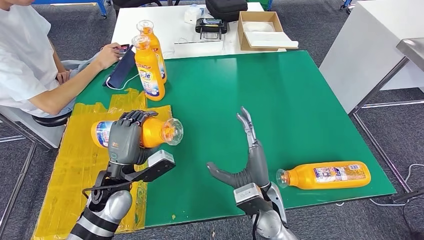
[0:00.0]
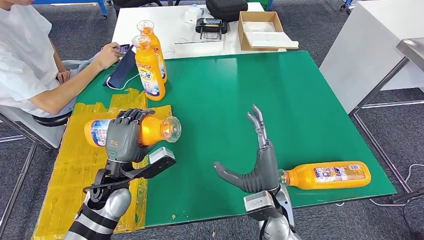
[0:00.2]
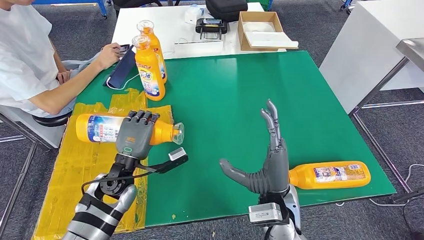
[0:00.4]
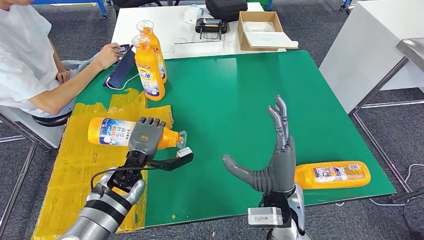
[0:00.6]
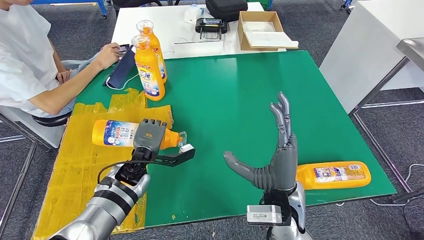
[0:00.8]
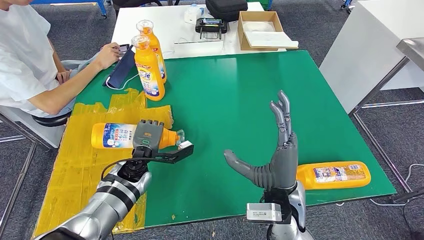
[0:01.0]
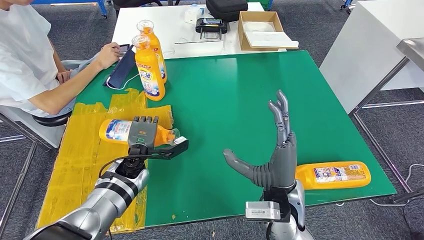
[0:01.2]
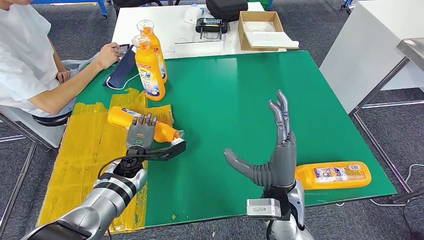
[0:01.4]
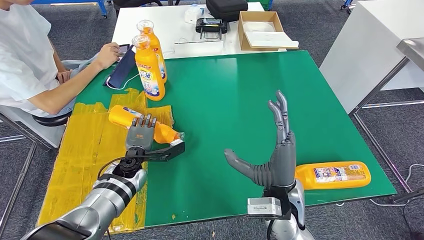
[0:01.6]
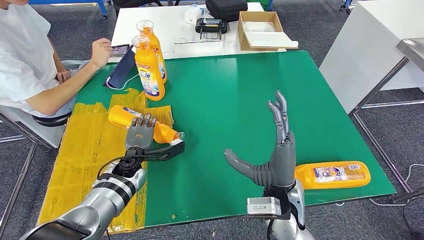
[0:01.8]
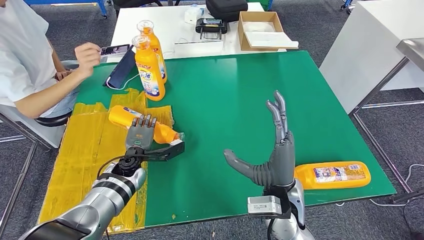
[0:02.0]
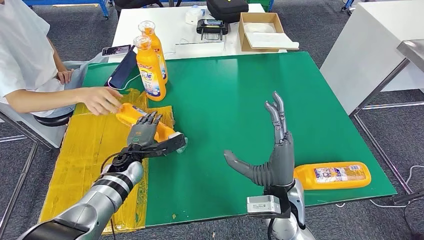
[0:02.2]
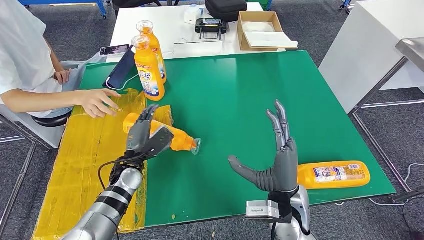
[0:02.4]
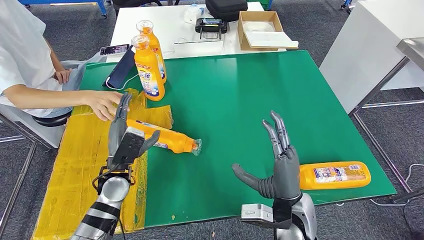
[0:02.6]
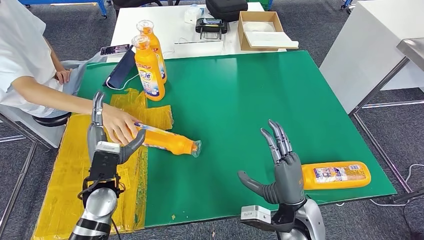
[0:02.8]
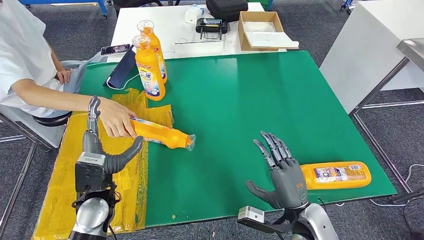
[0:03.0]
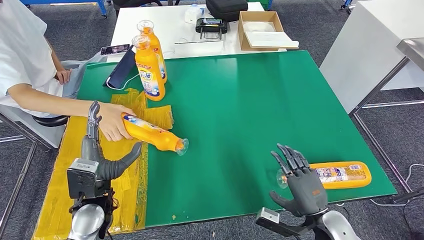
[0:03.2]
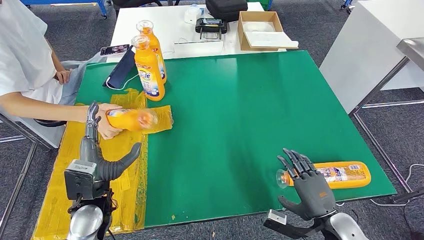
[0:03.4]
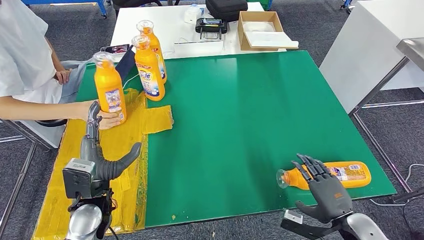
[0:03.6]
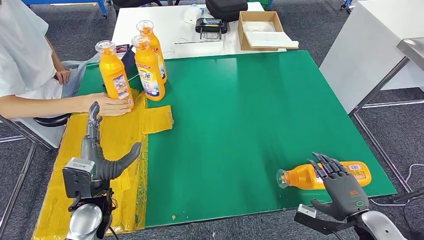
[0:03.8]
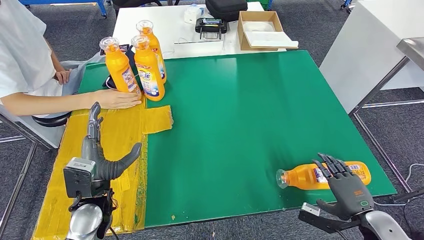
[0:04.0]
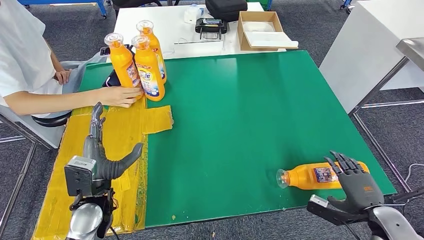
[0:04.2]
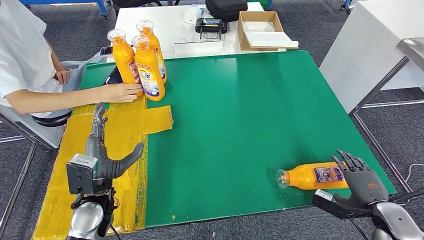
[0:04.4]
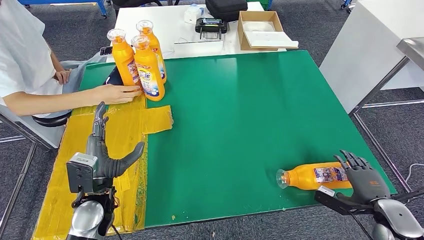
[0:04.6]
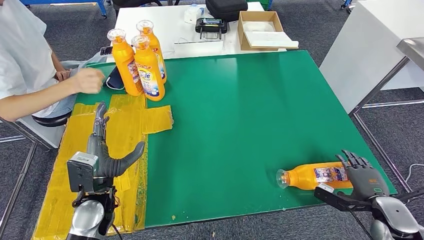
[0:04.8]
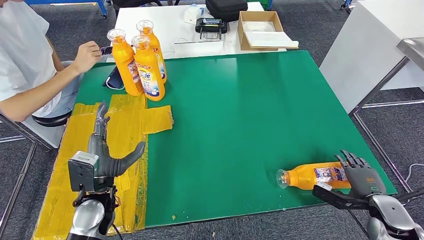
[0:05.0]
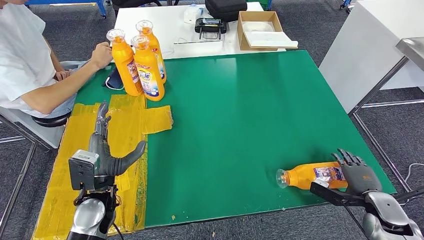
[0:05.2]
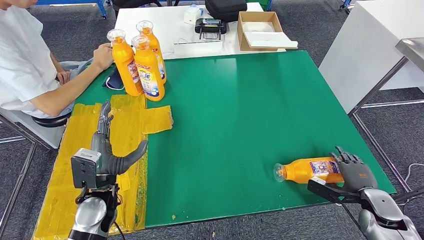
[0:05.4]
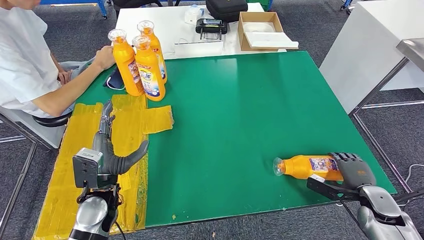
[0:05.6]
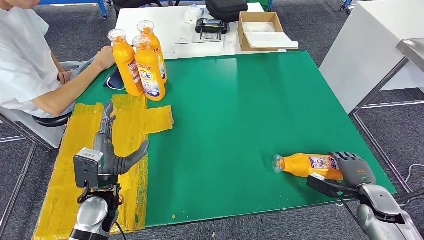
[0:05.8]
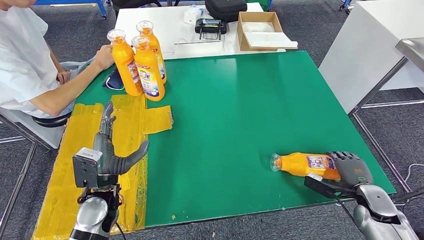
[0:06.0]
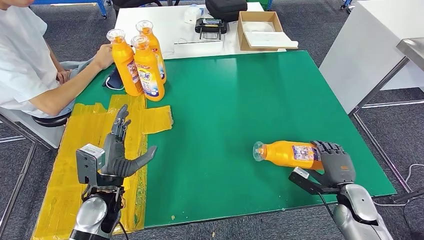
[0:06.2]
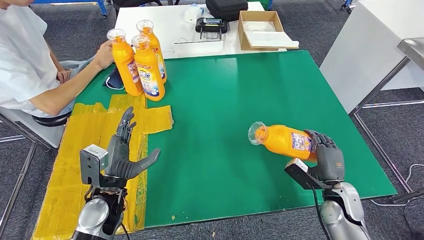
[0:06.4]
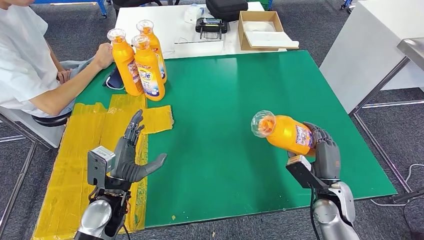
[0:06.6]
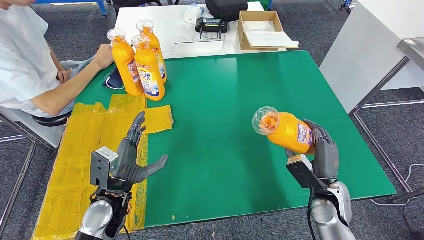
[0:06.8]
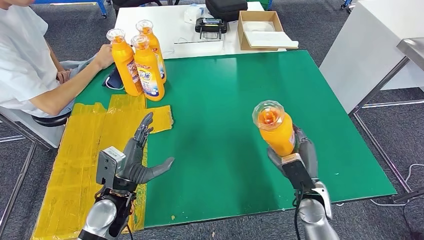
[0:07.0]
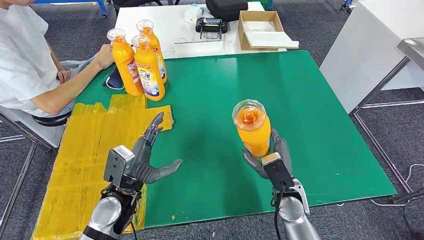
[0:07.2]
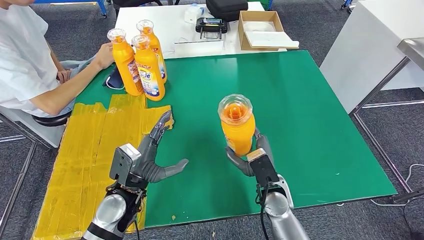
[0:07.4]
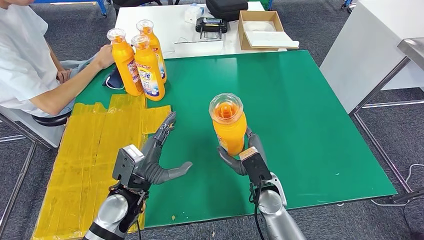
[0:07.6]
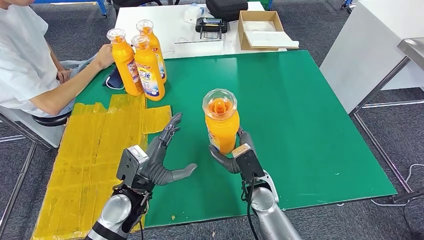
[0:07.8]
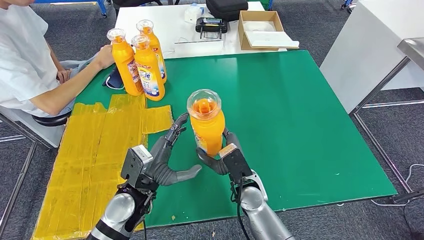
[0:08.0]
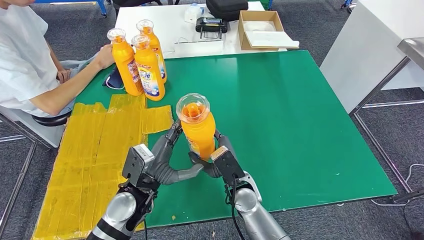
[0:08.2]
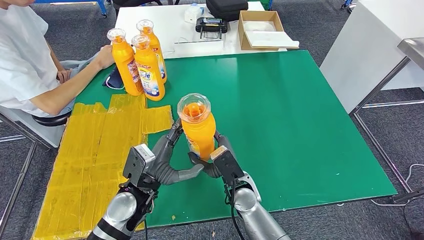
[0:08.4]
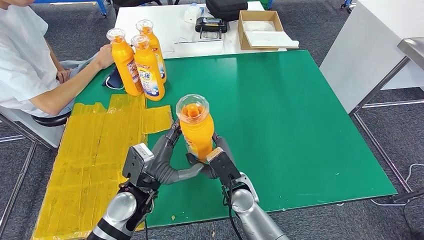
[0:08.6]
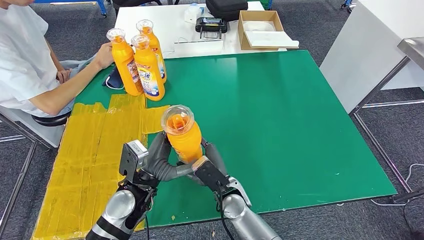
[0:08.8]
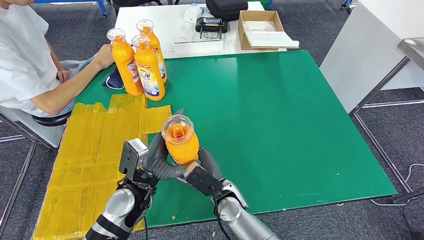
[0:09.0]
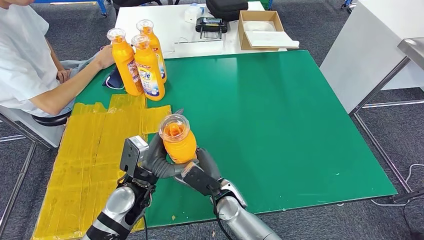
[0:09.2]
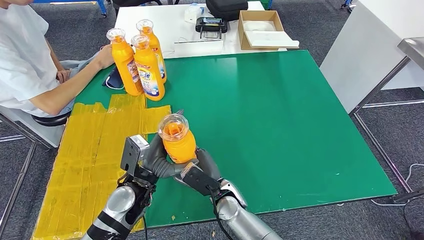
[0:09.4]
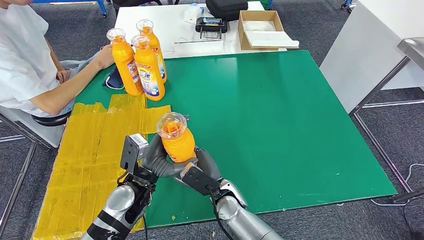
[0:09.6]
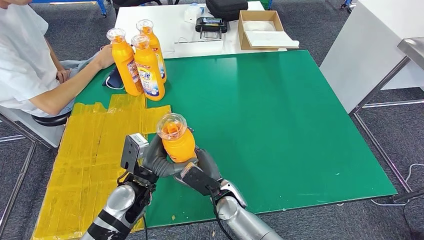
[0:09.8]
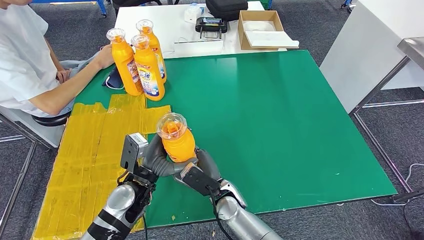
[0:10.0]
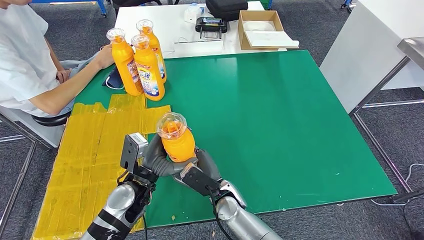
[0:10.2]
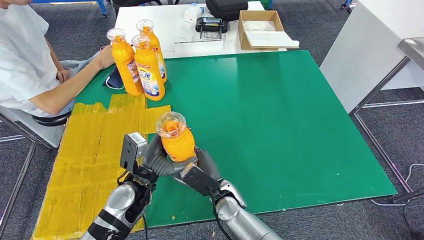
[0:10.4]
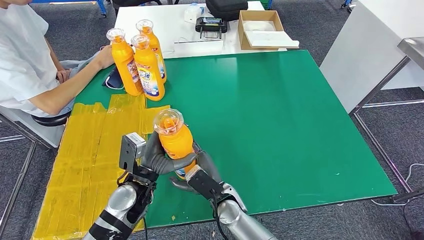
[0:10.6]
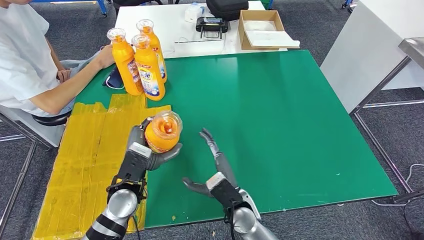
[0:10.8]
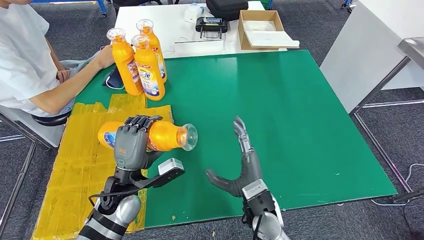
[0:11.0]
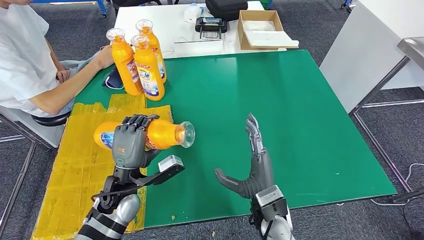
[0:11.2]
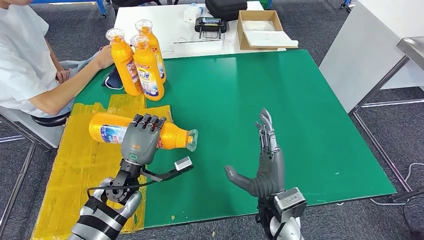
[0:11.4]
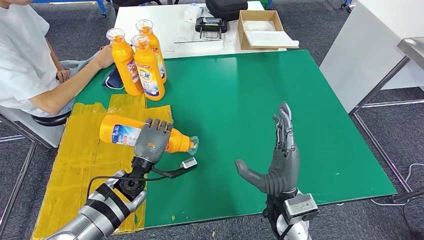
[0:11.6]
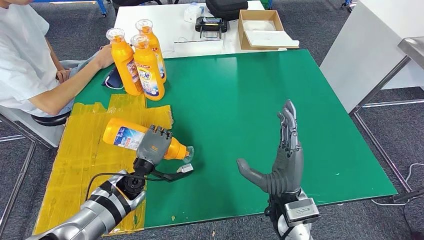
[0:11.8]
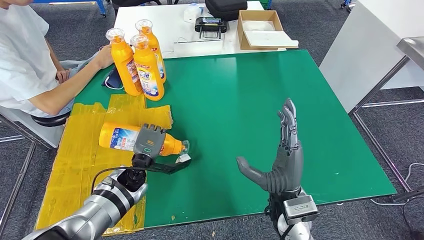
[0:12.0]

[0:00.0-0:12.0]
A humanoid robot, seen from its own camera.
Step, 0:00.0 to 0:02.8: Flip the fast-moving consumer goods bottle to the front side.
Step, 0:03.0 to 0:06.6: Pick up the fast-moving consumer goods bottle from the table.
0:00.0 to 0:01.6: The left hand travels forward and downward by approximately 10 cm. Meanwhile the right hand shifts some 5 cm upward.
0:01.6 to 0:03.0: The left hand is displaced backward and upward by roughly 15 cm. The right hand moves to the right and downward, some 10 cm.
0:03.0 to 0:04.4: The right hand moves to the right, about 20 cm.
0:04.4 to 0:06.0: The right hand moves forward, about 5 cm.
0:07.6 to 0:09.0: The right hand goes roughly 10 cm to the left.
0:09.0 to 0:10.4: There are only small adjustments of the hands.
0:10.4 to 0:12.0: The right hand shifts roughly 15 cm to the right and upward; the left hand travels forward and downward by approximately 10 cm.

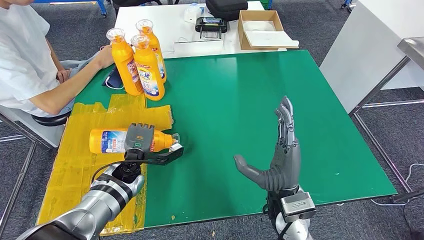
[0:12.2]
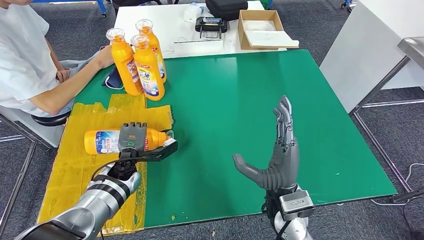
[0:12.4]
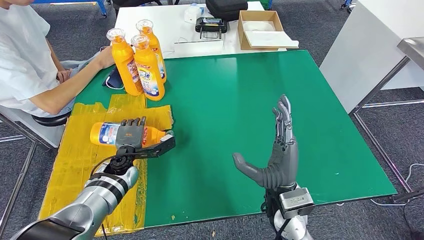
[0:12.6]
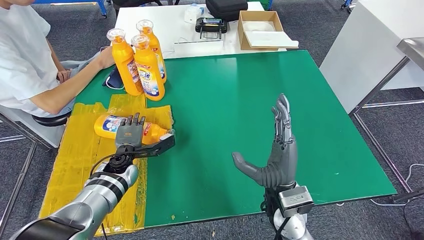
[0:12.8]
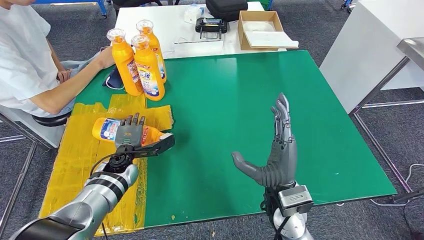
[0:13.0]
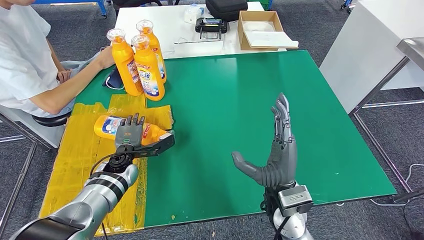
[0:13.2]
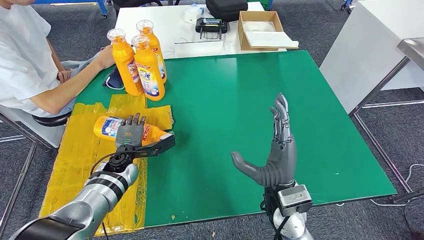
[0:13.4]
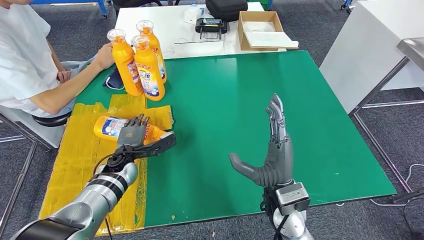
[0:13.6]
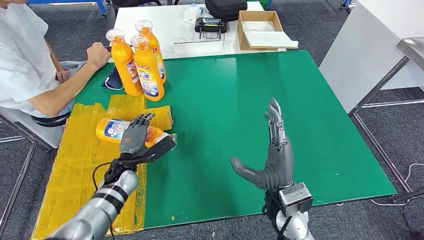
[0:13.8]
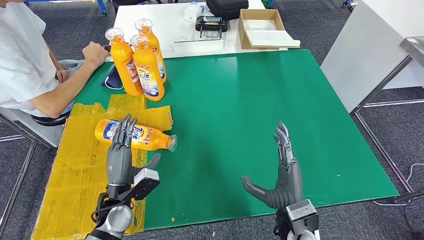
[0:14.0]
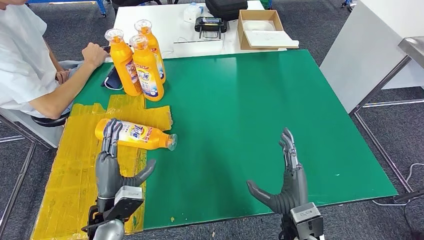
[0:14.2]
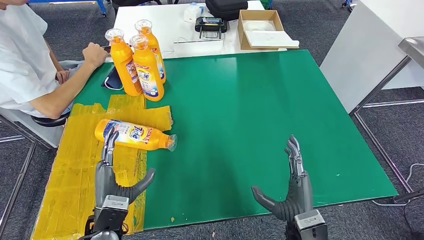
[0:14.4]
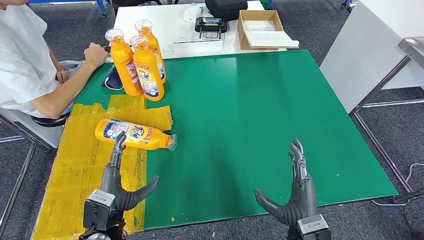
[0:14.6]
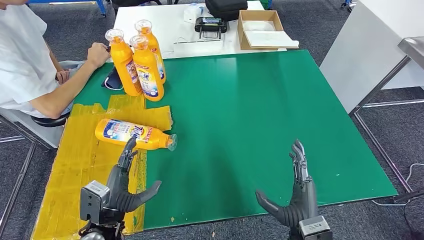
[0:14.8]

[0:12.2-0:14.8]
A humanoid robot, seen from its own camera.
Step, 0:12.2 to 0:14.6: Flip the fast-moving consumer goods bottle to the front side.
0:12.2 to 0:13.4: The hands make only small movements.
0:13.4 to 0:14.8: The left hand is displaced backward by about 20 cm; the right hand goes about 10 cm backward, downward and to the right.
